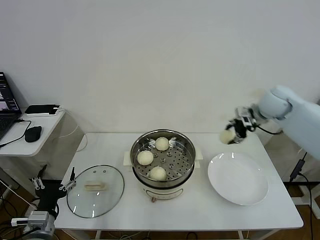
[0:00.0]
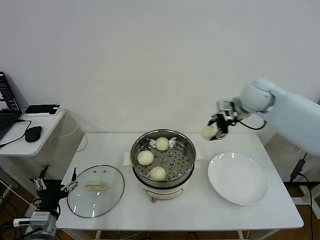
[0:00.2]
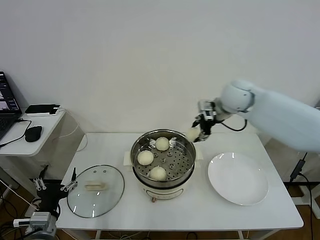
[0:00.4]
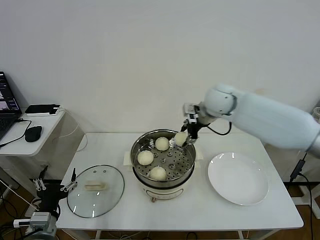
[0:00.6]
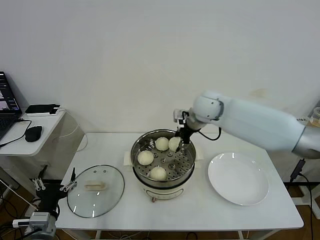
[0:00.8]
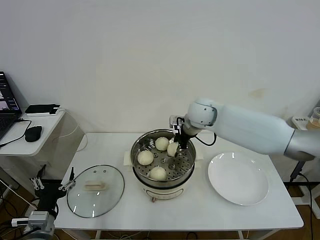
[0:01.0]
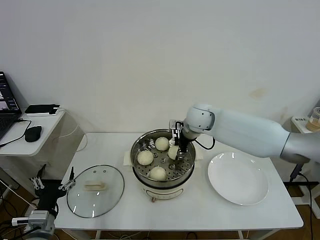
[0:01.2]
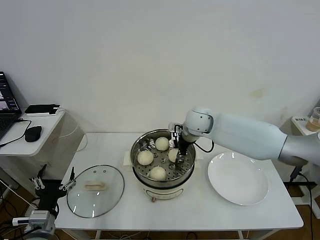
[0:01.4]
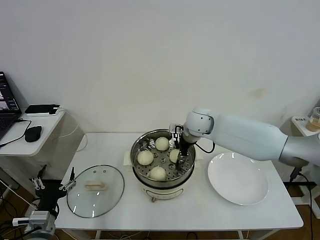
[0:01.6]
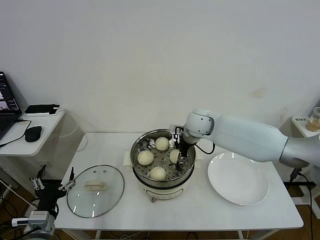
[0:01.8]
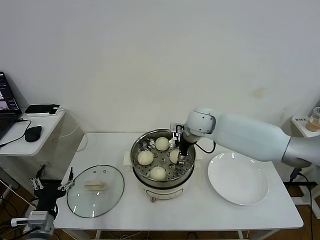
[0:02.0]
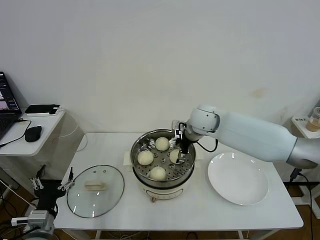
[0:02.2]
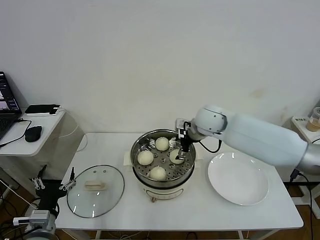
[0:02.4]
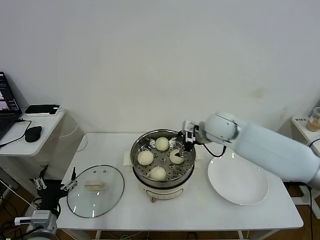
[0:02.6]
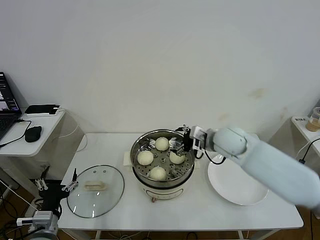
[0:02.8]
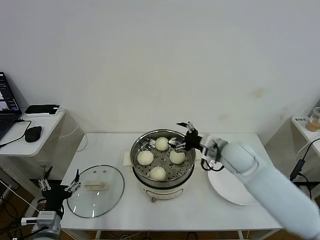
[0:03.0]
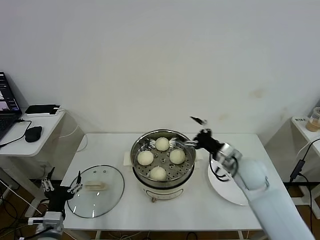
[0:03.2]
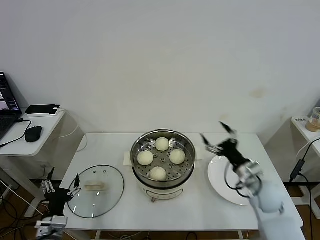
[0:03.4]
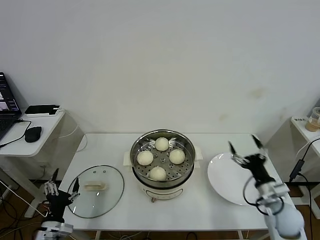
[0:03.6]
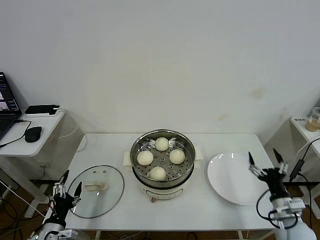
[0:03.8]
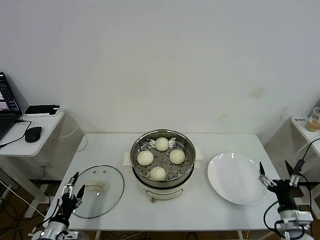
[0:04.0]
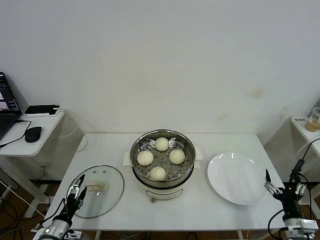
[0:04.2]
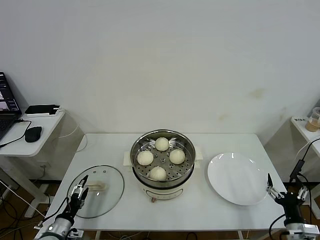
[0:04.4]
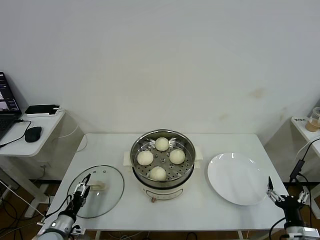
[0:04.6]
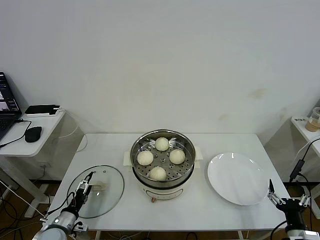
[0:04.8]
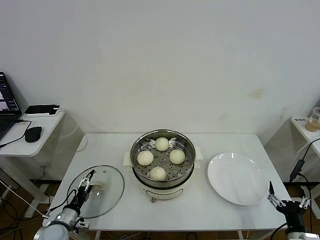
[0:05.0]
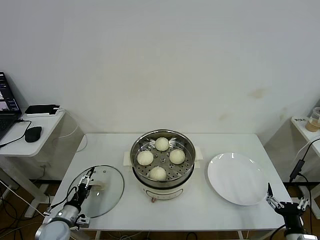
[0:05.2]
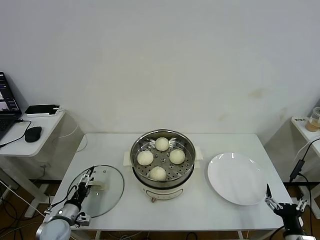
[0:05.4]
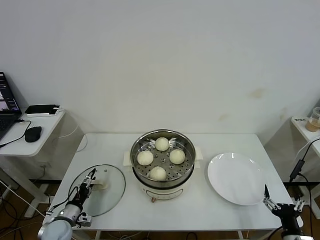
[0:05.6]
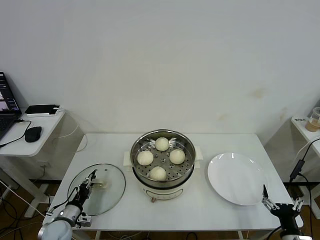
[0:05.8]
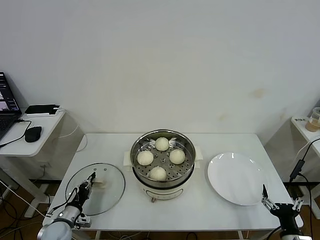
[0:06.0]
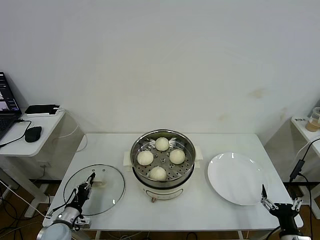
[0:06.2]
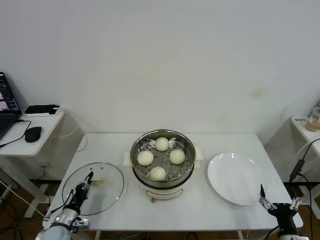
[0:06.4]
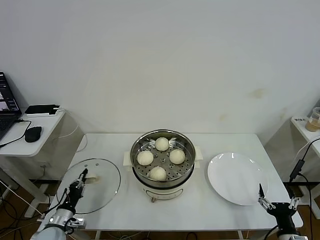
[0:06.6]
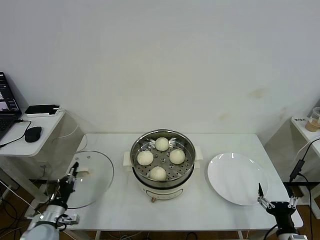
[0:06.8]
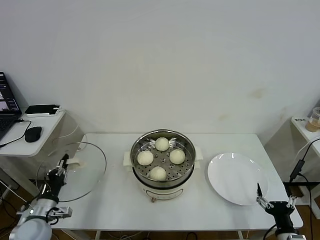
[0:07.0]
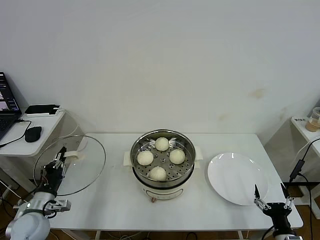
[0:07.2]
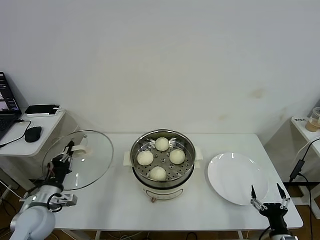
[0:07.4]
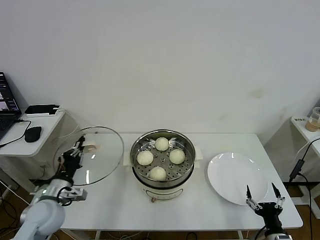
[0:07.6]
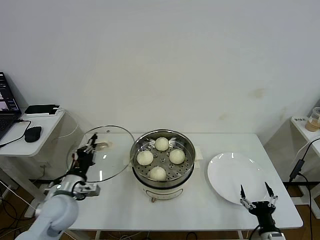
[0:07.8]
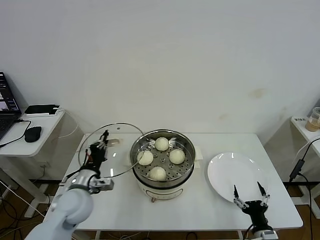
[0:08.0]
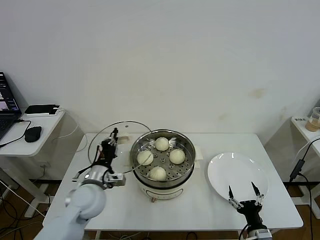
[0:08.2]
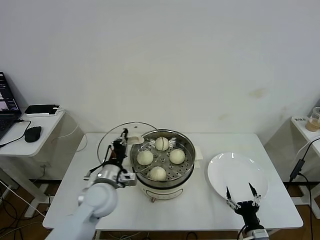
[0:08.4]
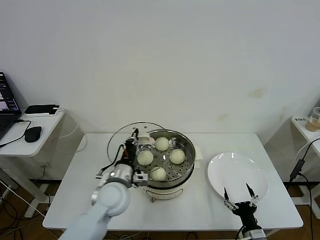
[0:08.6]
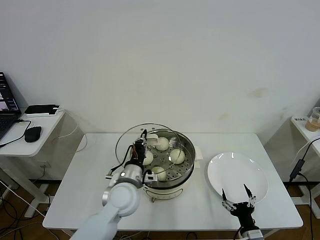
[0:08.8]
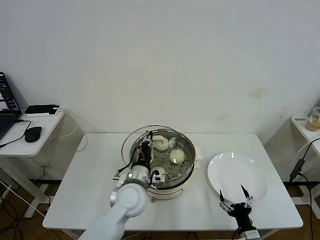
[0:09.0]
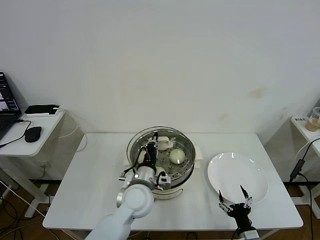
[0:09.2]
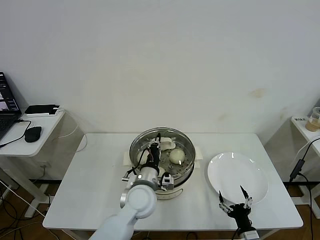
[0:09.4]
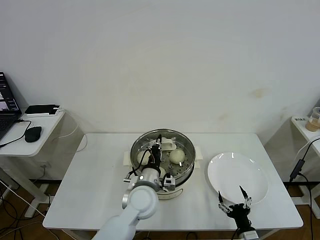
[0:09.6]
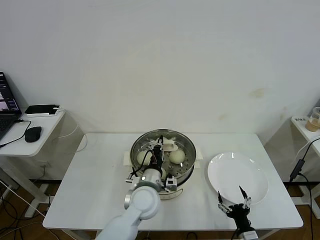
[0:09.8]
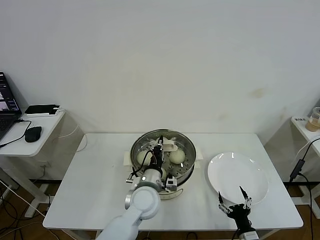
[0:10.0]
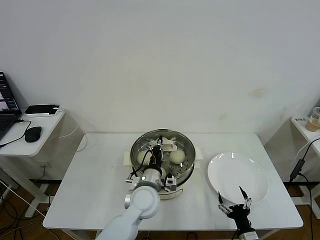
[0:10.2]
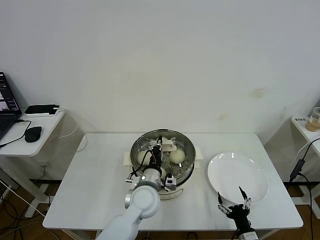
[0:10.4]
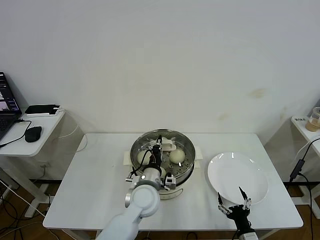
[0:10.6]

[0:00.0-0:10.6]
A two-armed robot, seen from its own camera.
Task of the whole recording: take steamed baozi put them in steamer then cover it.
Step, 0:00.0 to 0:02.0: Place the baozi on the steamer with right gripper.
Step, 0:02.2 to 0:06.4: Grasp the pot lid with left gripper.
0:00.0 to 0:01.6: The right gripper moves to the left, approximately 25 cm.
0:01.6 to 0:03.0: The right gripper moves backward and to the right, some 15 cm, and opens.
0:03.0 to 0:04.6: The right gripper travels backward, to the right and downward by some 35 cm; the left gripper travels downward and to the left by some 15 cm.
0:04.6 to 0:06.0: The left gripper shifts by approximately 5 cm, and closes its fingers.
0:06.0 to 0:07.6: The left gripper moves upward, some 15 cm.
0:07.6 to 0:09.0: The right gripper shifts about 5 cm to the left, while the left gripper shifts approximately 25 cm to the right.
0:09.0 to 0:10.6: The left gripper ends up approximately 5 cm from where it was.

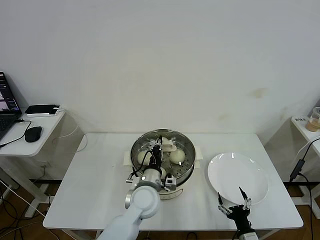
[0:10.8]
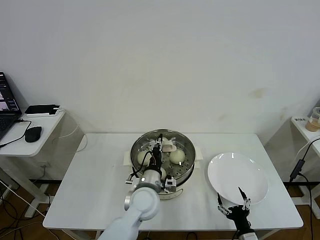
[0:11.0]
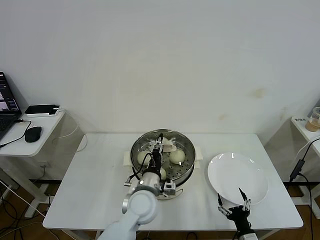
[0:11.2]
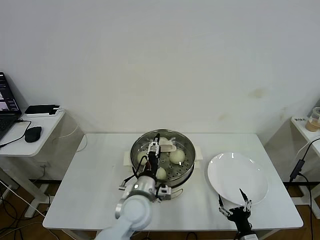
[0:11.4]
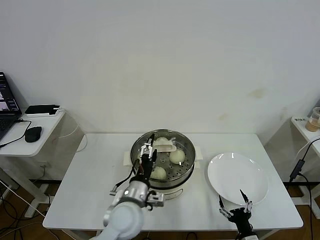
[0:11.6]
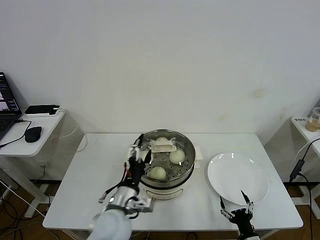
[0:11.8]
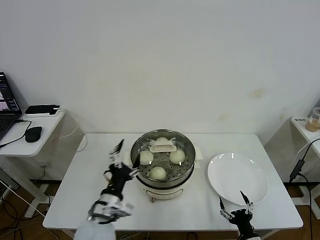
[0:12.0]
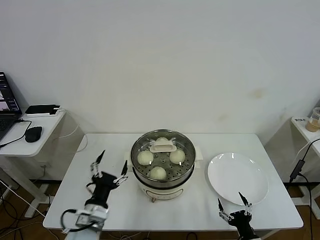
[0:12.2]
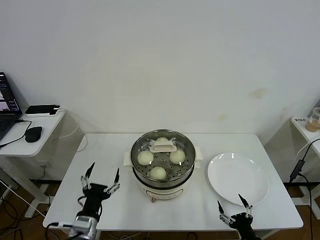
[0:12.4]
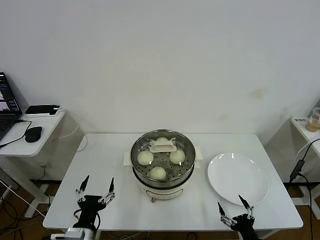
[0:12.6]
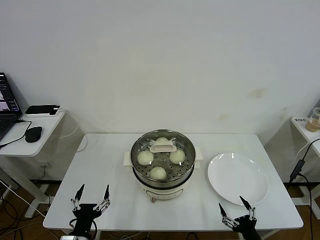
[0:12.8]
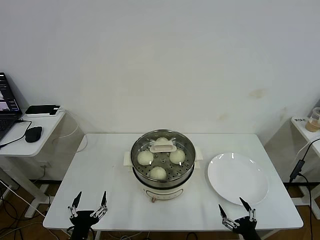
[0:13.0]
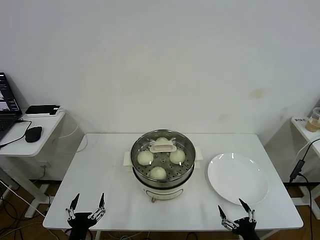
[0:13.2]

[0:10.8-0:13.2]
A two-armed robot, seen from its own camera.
Task of the whole recording: take steamed baozi put them in steamer then cover it.
0:10.8 to 0:12.0: The left gripper travels to the left and backward by about 15 cm, and opens its fingers.
0:12.0 to 0:13.2: The right gripper shifts by approximately 5 cm. Meanwhile the left gripper goes about 20 cm backward, to the left and downward.

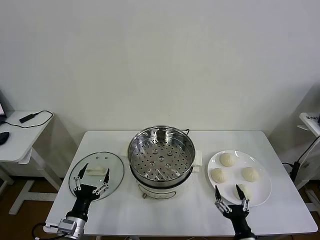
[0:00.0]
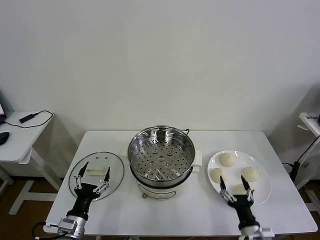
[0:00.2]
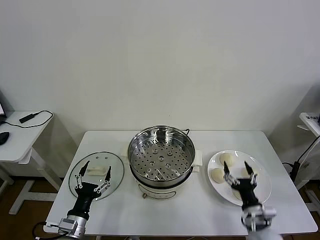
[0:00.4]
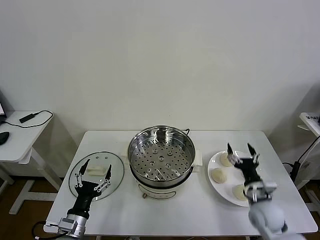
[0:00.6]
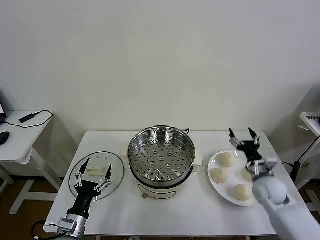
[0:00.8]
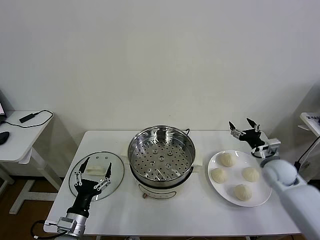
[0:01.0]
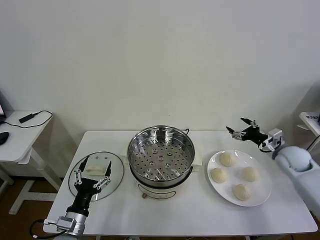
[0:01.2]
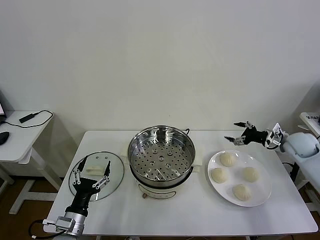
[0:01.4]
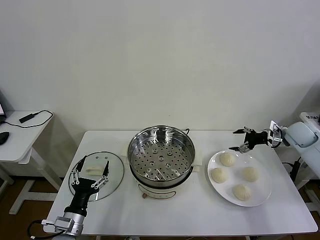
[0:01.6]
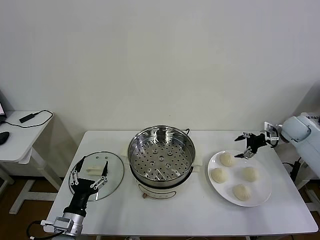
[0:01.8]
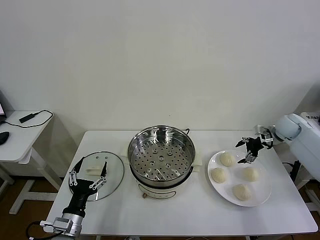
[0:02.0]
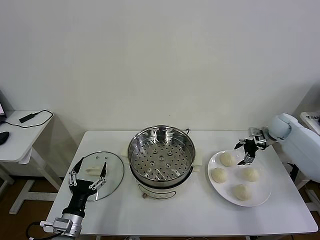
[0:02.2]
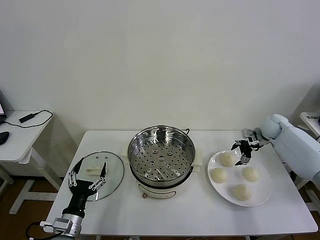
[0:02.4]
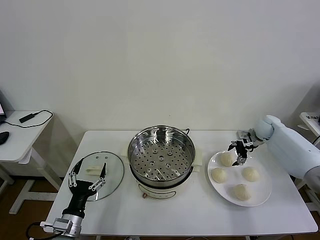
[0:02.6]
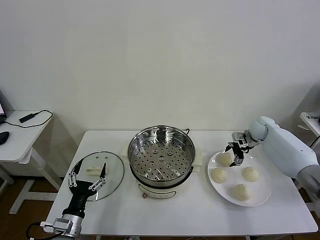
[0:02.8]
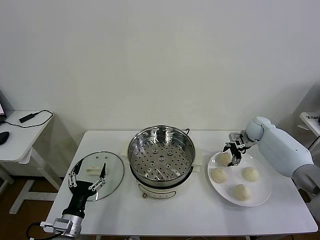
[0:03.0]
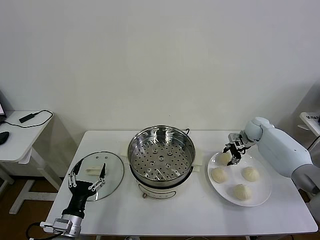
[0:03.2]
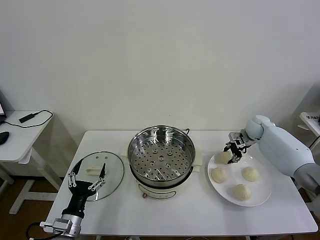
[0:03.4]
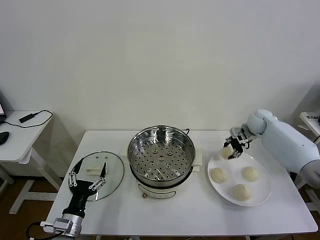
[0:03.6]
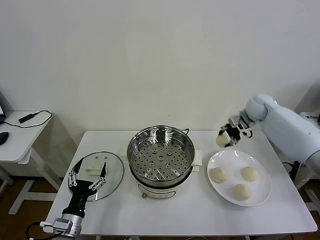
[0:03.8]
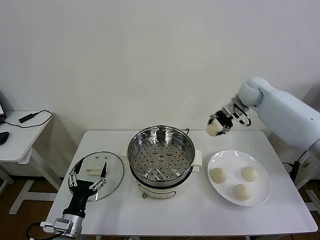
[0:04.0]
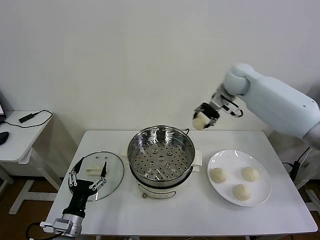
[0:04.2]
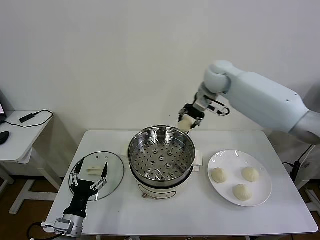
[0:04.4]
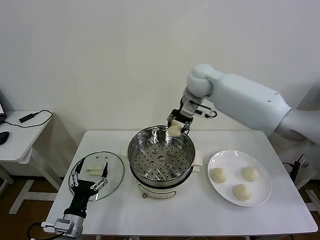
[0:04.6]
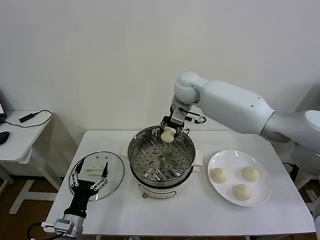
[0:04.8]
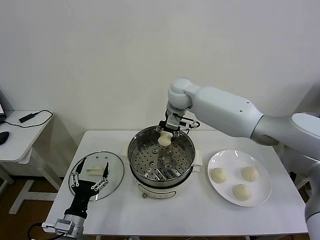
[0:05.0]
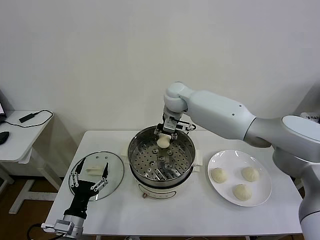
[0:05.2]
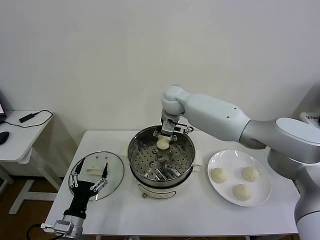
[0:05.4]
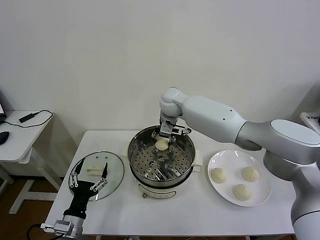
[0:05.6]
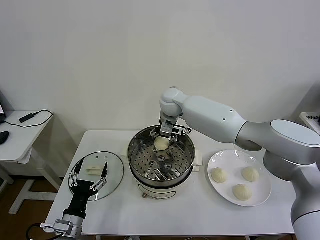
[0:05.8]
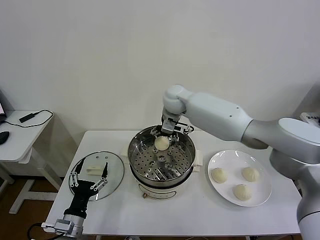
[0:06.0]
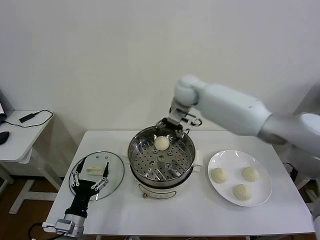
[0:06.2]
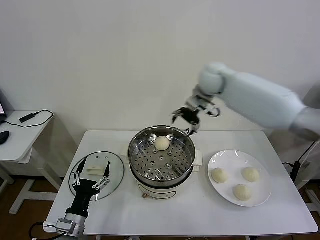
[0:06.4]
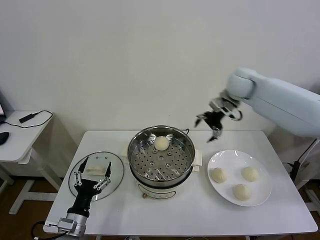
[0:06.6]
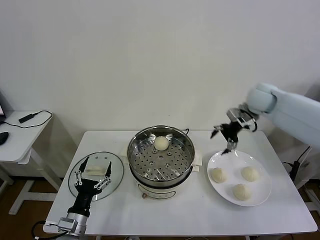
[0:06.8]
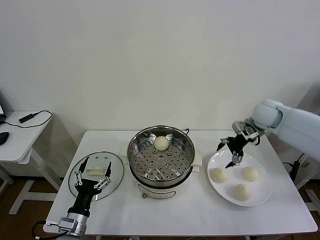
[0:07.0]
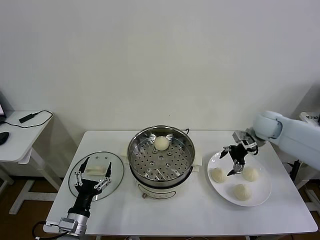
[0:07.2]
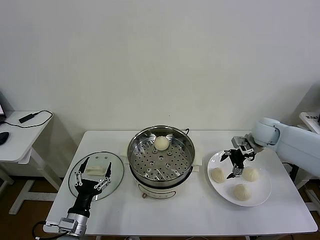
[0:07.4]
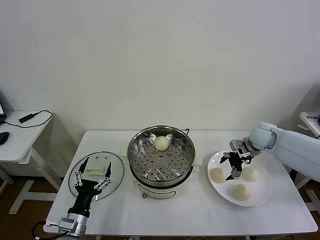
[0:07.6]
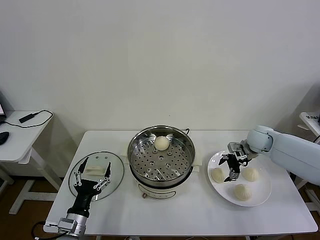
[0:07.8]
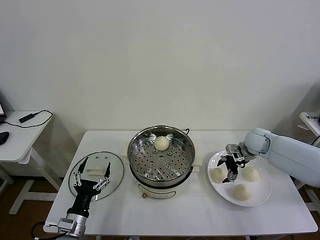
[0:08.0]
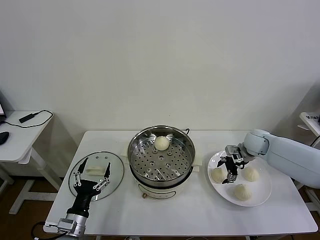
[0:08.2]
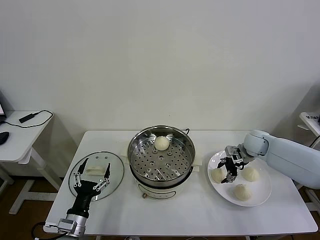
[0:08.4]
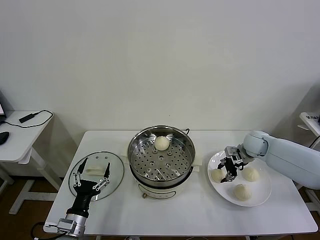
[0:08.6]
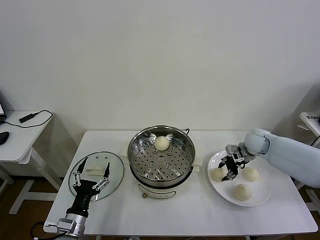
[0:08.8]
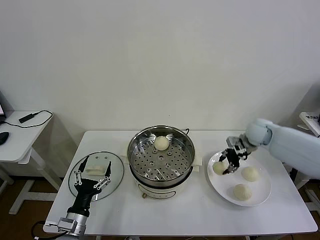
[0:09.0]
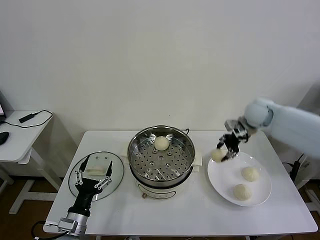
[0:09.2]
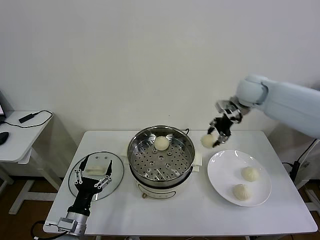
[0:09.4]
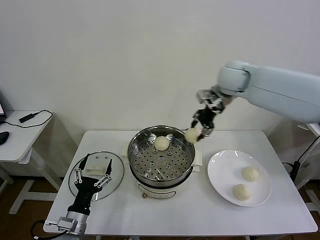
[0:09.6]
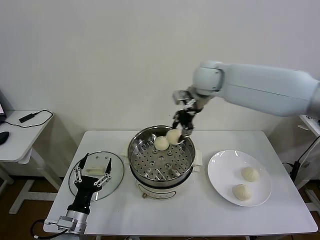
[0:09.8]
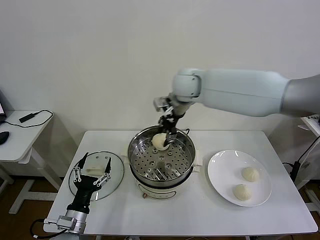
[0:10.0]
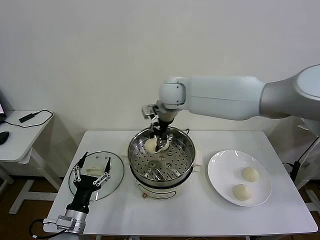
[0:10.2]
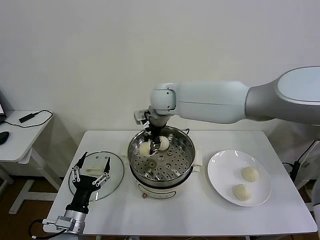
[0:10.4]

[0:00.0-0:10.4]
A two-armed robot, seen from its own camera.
Task of the whole recording: take steamed baozi put them in steamer then cover it.
Step, 0:00.0 to 0:03.2: Grasp the baozi in the plate with right gripper.
Step, 0:03.4 to 0:05.8: Place the baozi on the steamer with right gripper.
Step, 0:06.0 to 0:08.6: Grasp the baozi in the plate with right gripper.
0:01.4 to 0:03.0: The right gripper travels forward and to the left by some 15 cm, and closes its fingers.
0:03.0 to 0:04.4: The right gripper moves upward and to the left, approximately 35 cm, and closes up.
0:04.4 to 0:06.0: The right gripper goes some 15 cm to the left and downward, and opens.
0:06.0 to 0:07.4: The right gripper goes about 30 cm to the right.
0:07.4 to 0:09.0: The right gripper closes its fingers.
0:09.0 to 0:10.4: The right gripper shifts about 35 cm to the left.
